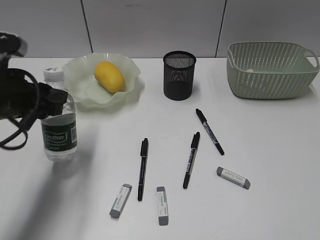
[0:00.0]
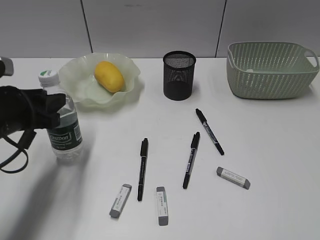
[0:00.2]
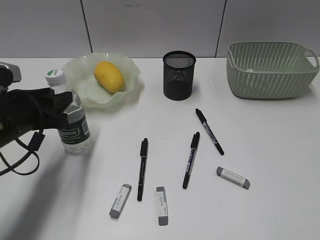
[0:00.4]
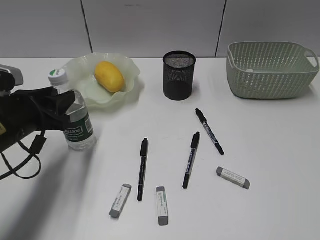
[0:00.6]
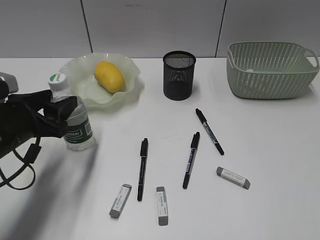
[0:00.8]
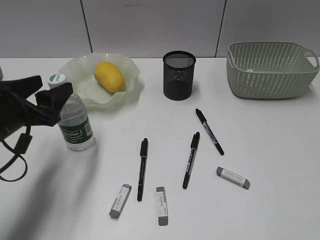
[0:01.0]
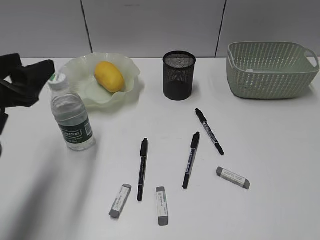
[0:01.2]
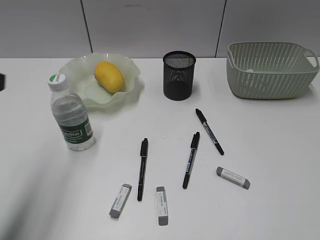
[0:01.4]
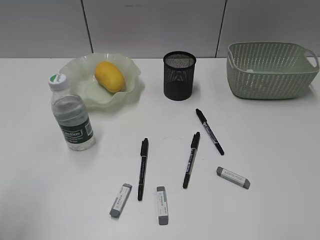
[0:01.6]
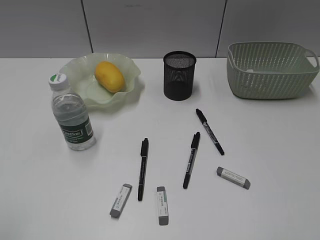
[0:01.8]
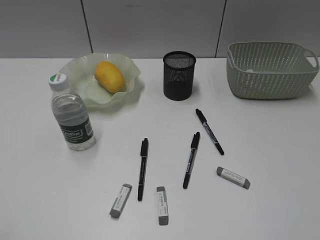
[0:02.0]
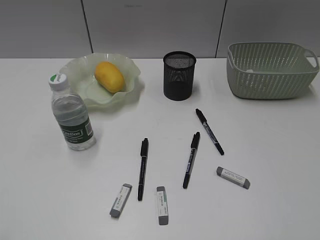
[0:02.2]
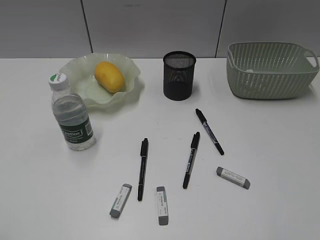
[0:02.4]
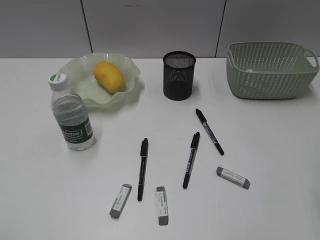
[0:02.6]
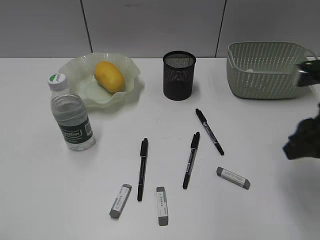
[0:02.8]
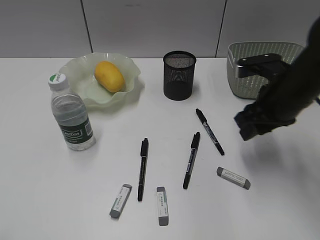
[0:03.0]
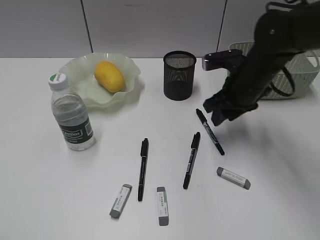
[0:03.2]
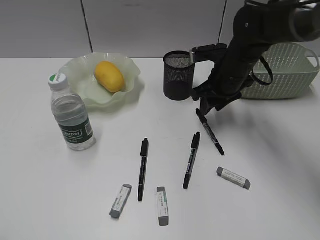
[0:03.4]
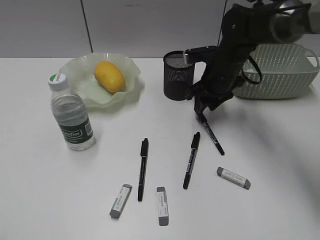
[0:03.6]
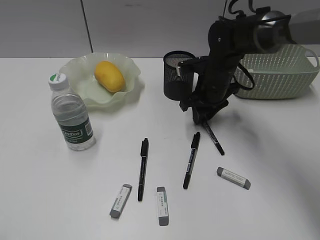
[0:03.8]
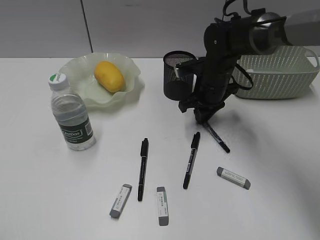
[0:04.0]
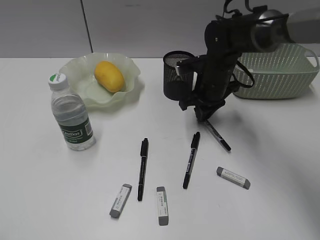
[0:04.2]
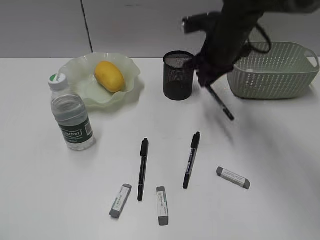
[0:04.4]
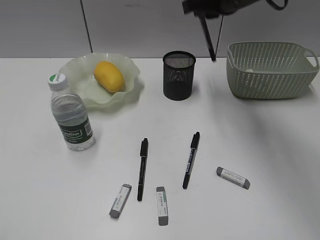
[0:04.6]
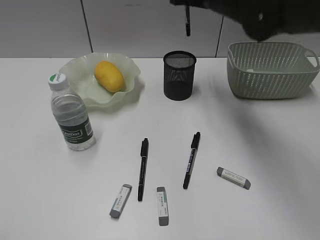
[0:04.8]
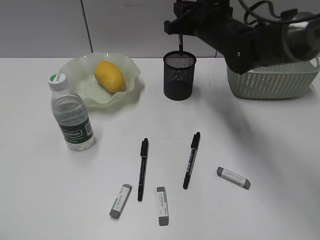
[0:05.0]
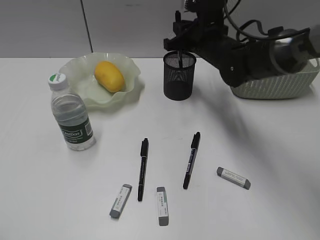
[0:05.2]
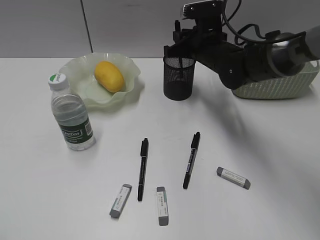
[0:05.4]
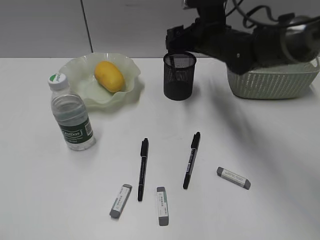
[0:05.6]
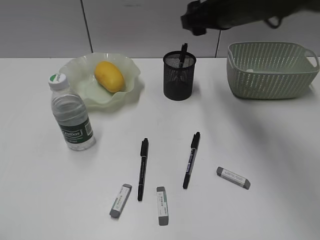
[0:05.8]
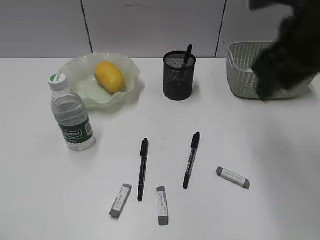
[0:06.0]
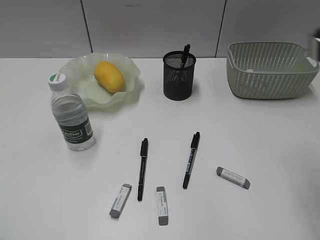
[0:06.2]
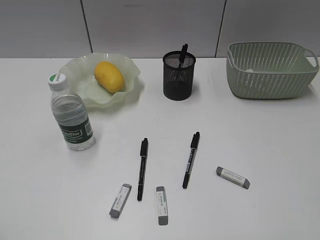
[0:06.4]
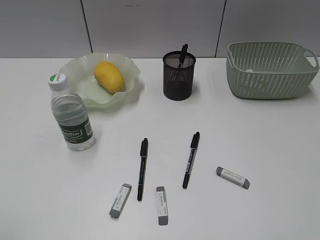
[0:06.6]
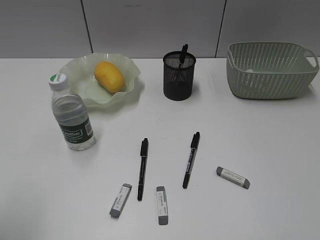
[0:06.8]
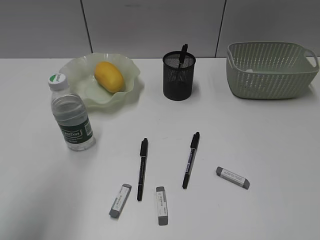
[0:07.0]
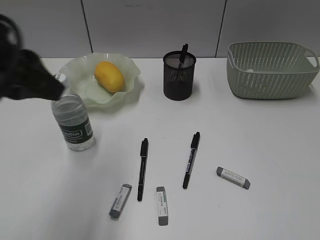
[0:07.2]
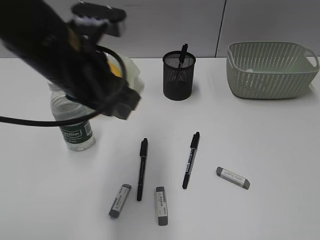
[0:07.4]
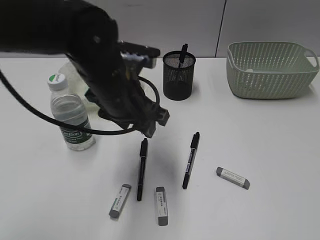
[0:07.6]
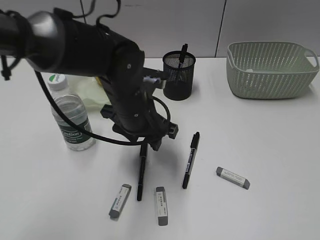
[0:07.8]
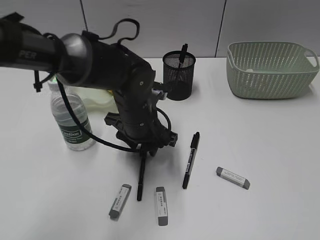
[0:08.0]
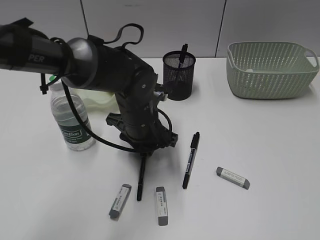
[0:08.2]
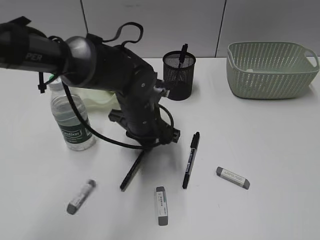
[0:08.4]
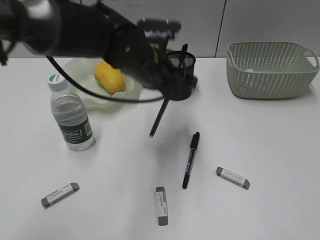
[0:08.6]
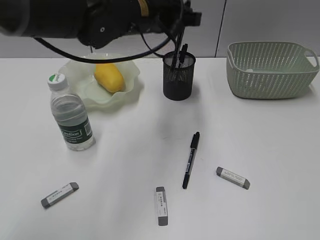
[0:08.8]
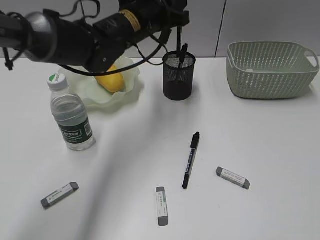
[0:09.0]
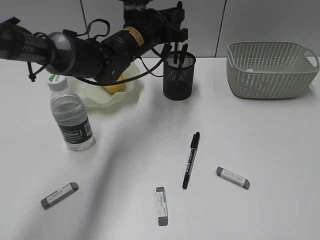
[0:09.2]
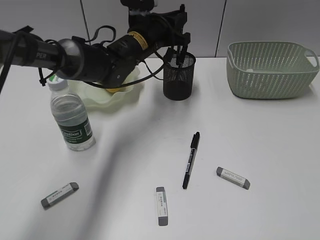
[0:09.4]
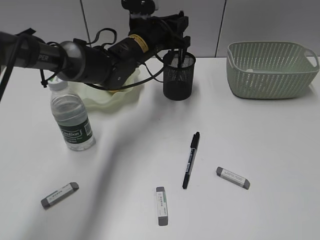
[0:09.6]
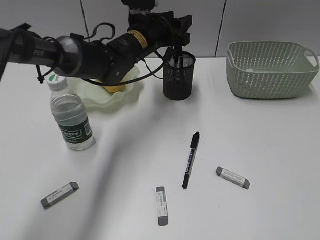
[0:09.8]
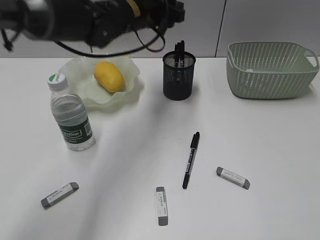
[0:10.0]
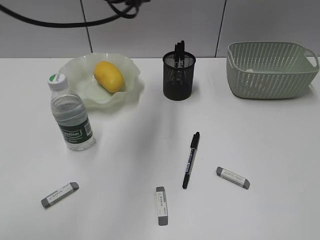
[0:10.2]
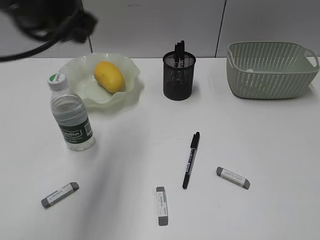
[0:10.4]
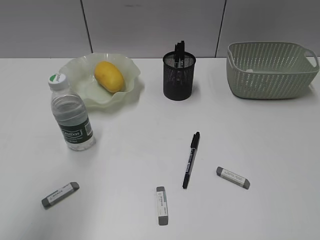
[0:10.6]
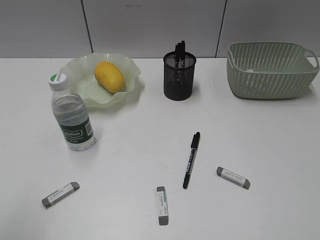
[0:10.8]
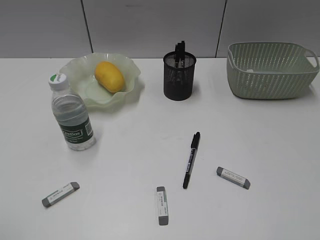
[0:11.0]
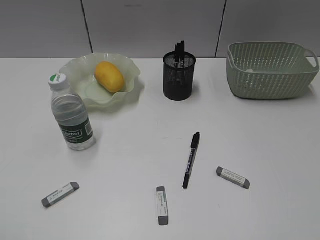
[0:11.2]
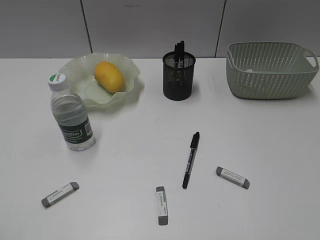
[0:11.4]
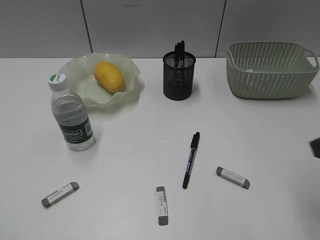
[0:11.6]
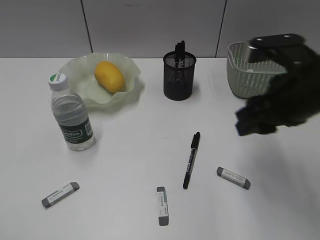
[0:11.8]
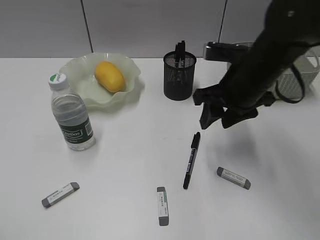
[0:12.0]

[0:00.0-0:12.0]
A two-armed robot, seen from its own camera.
Step, 0:00.0 to 0:01.0: Stand the bottle with left gripper.
Step, 0:01.2 to 0:04.0: Grasp the black pen with right gripper.
Step, 0:04.2 to 0:05.6: Place the black pen in pen holder with right gripper.
Step, 0:05.8 to 0:08.2: Grasp the black pen with left gripper.
Step, 0:08.4 to 0:09.8: Place the black pen in pen holder with left gripper.
0:00.0 to 0:01.6: The left gripper shifts approximately 20 cm backward, upward and to the left, and opens and closes again.
0:01.6 to 0:03.0: The right gripper is displaced forward by some 30 cm. Meanwhile the left gripper travels backward by about 10 cm.
0:03.0 to 0:04.4: The right gripper moves forward and to the left, about 15 cm, and closes.
0:04.4 to 0:06.0: The right gripper travels backward, upward and to the right by approximately 20 cm, and opens.
0:06.0 to 0:07.6: The right gripper heads backward and to the right, covering approximately 30 cm. The left gripper travels forward and to the right by some 40 cm, and opens.
0:07.6 to 0:09.0: The left gripper moves up and down over approximately 15 cm, changing direction 2 times, and closes its fingers.
0:09.0 to 0:10.4: The left gripper travels backward, to the left and upward by about 25 cm, and opens and closes again.
0:10.4 to 0:12.0: The left gripper is displaced backward and to the left by some 30 cm; the right gripper moves forward and to the left, roughly 35 cm.

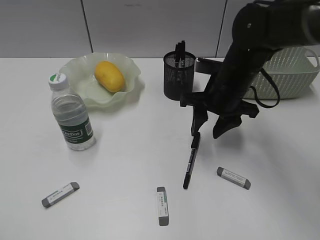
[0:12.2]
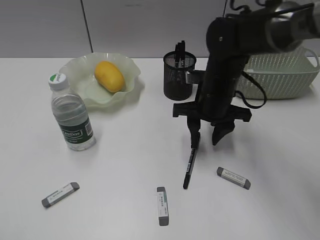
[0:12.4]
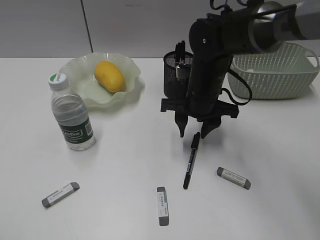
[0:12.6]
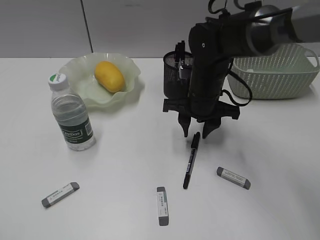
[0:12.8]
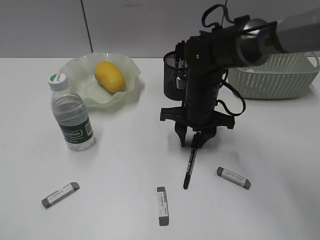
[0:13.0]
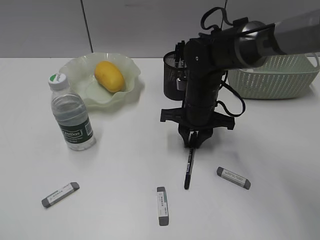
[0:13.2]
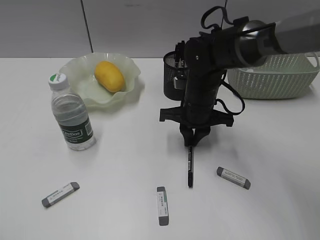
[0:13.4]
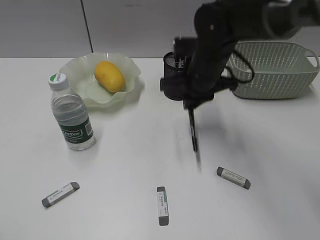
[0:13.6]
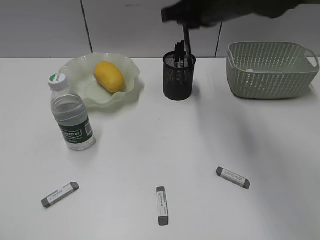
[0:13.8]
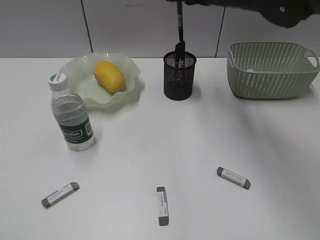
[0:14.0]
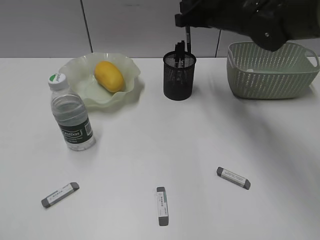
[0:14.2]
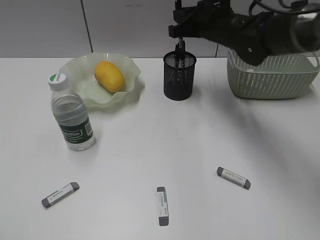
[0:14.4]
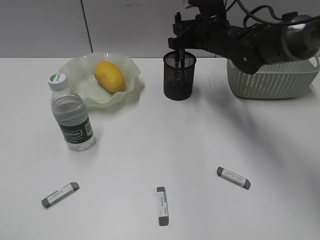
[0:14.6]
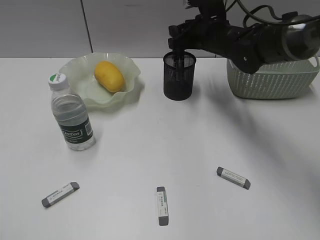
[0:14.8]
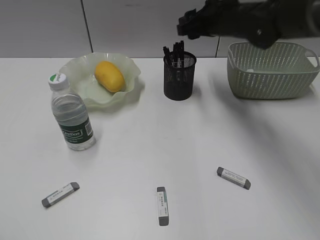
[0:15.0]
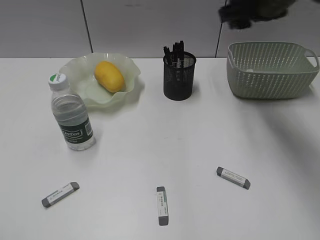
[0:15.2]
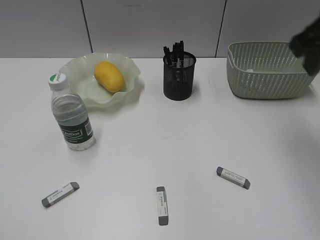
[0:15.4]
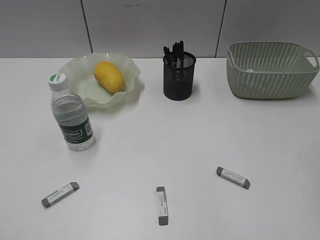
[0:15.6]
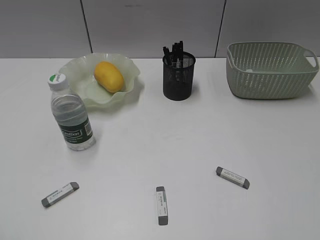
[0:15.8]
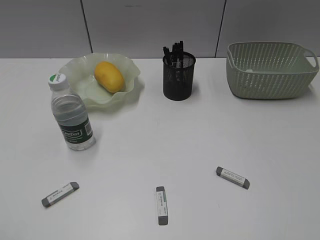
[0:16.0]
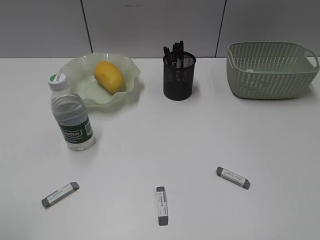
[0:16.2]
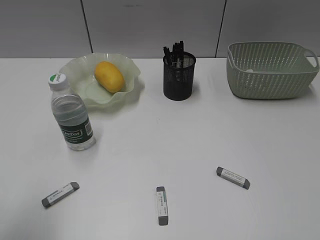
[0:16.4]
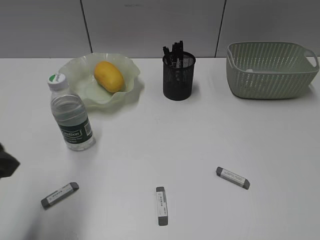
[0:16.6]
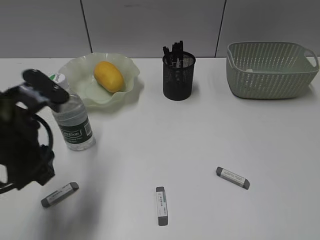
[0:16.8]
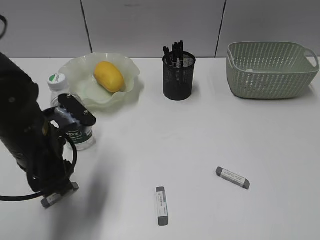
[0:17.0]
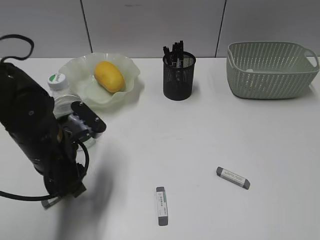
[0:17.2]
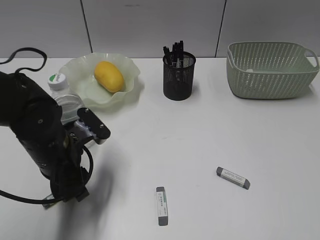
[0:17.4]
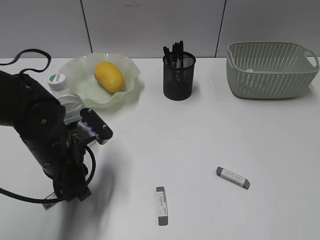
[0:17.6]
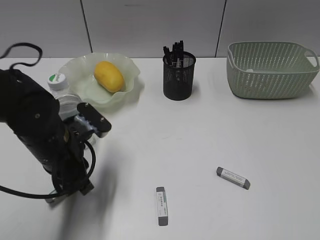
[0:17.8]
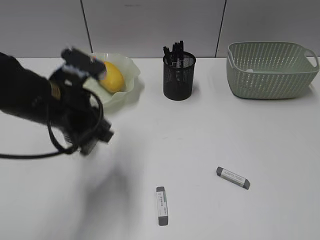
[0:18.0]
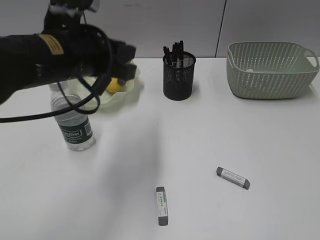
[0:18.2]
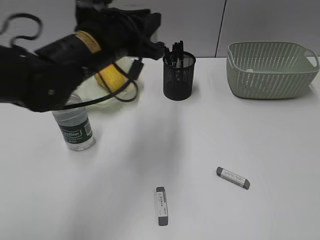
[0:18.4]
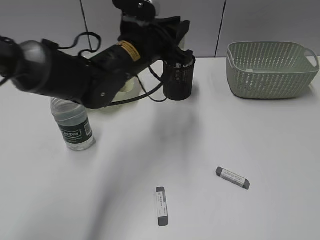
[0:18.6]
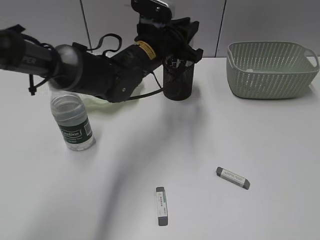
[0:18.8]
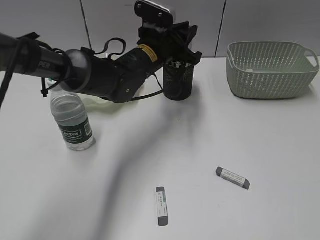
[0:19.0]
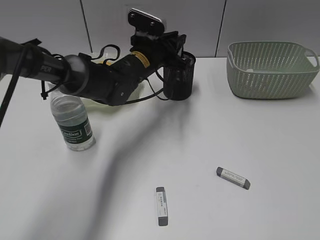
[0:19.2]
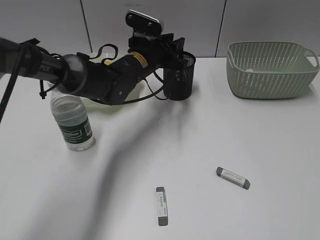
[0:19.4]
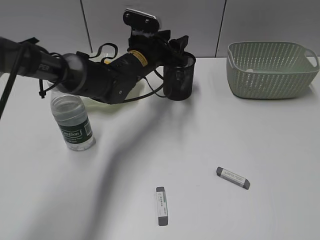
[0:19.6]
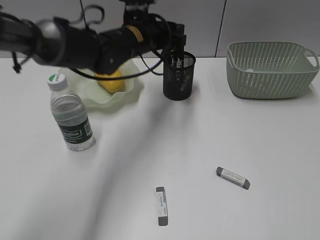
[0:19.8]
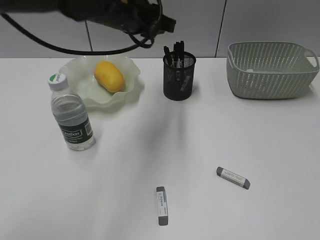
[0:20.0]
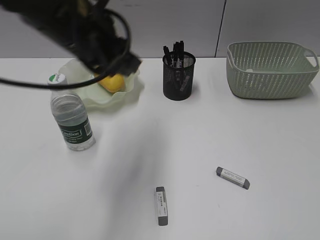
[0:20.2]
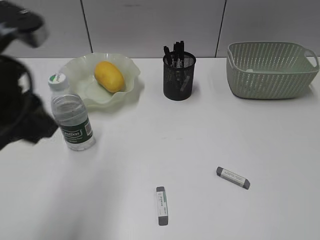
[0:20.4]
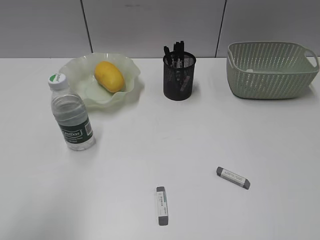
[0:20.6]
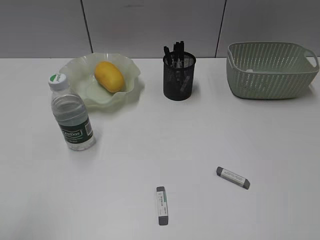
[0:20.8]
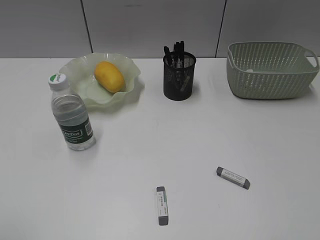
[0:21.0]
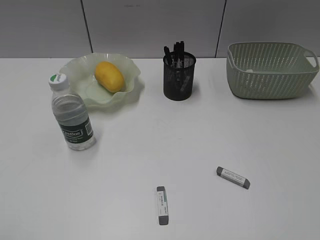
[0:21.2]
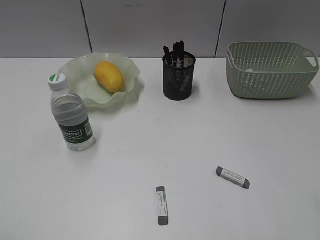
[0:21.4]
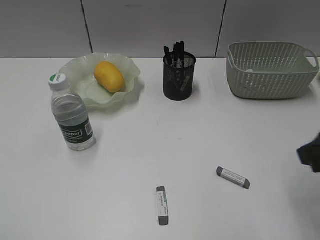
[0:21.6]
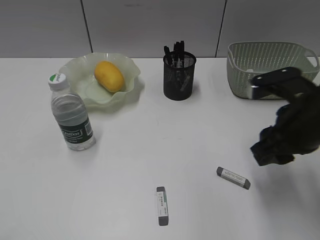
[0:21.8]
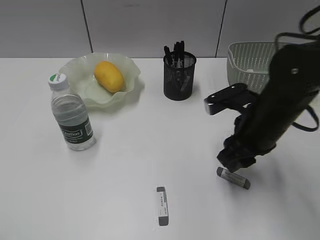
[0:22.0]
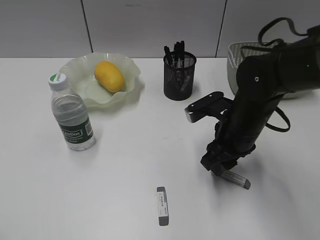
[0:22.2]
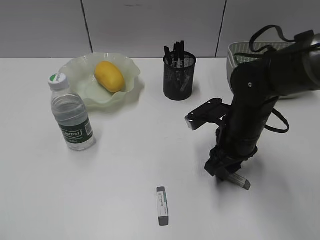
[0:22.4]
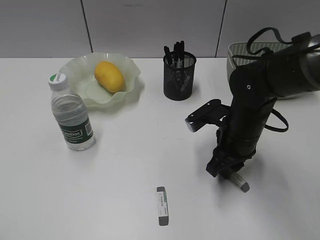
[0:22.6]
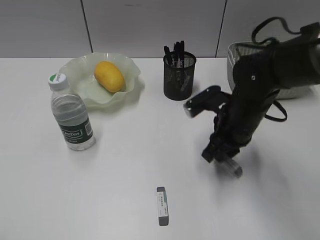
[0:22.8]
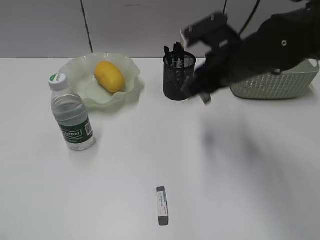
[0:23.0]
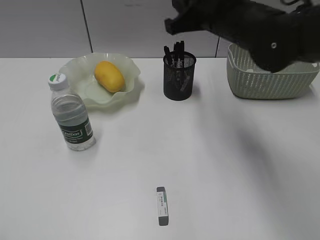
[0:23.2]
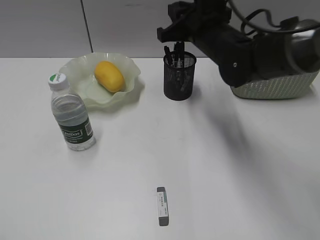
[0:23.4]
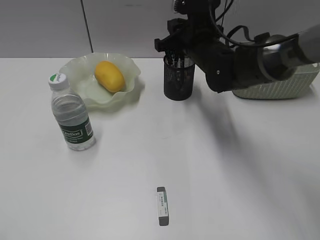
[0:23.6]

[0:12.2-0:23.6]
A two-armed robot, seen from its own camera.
Step, 0:13.4 to 0:14.8: Place the black pen in pen holder with right gripper.
Step, 0:15.0 to 0:17.6: Grasp the eraser with left gripper.
Step, 0:17.8 to 0:19.6: Place the eraser in pen holder with left gripper.
Step, 0:19.8 to 0:22.6: Grasp the eraser with right gripper.
0:12.2 to 0:13.6: The right gripper moves about 5 cm, and closes up.
0:13.6 to 0:15.0: The right gripper goes up and down, some 10 cm each way, reversing 2 times, and opens its fingers.
0:15.0 to 0:16.4: The right gripper moves backward and to the right, approximately 50 cm, and closes up. Meanwhile the left gripper heads forward and to the right, covering about 10 cm.
0:16.4 to 0:17.8: The left gripper shifts approximately 25 cm forward, downward and to the right, and closes its fingers.
0:17.8 to 0:19.4: The left gripper shifts approximately 20 cm forward and to the right.
0:19.4 to 0:20.8: The left gripper is displaced backward and to the left by some 50 cm.
0:20.8 to 0:22.2: The left gripper shifts some 5 cm backward, while the right gripper goes about 40 cm forward, to the left and downward.
0:22.2 to 0:23.6: The right gripper goes roughly 15 cm forward, reaches approximately 15 cm upward, then returns, and closes its fingers.
